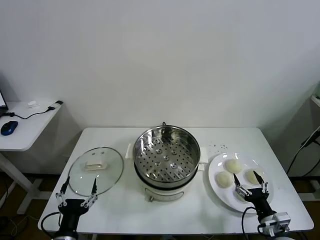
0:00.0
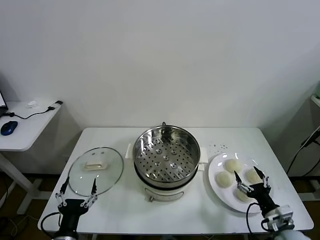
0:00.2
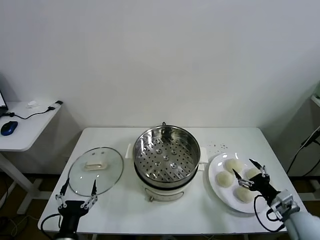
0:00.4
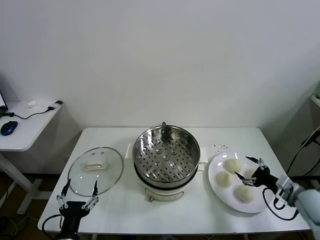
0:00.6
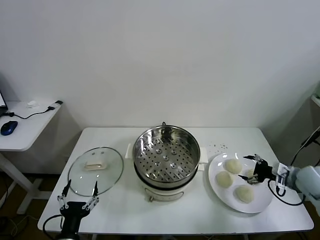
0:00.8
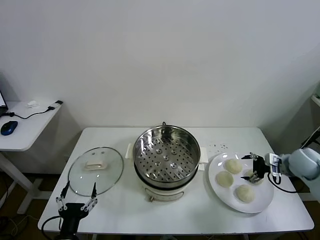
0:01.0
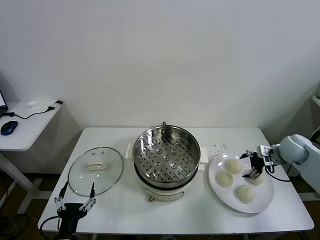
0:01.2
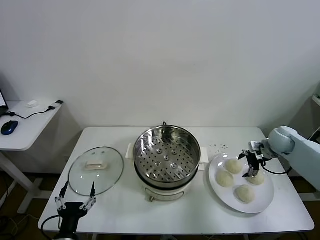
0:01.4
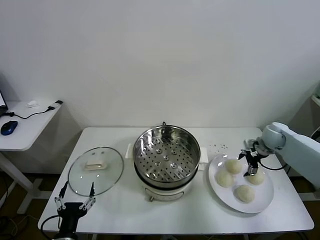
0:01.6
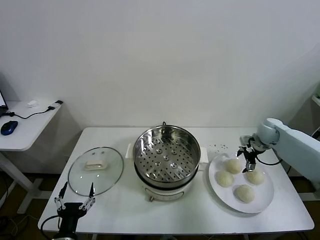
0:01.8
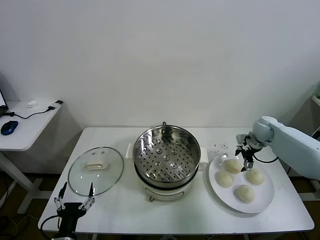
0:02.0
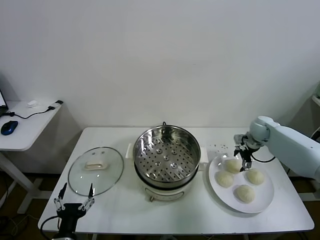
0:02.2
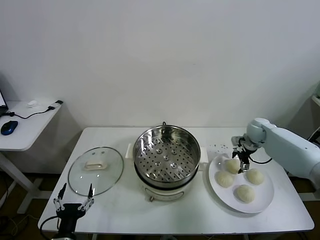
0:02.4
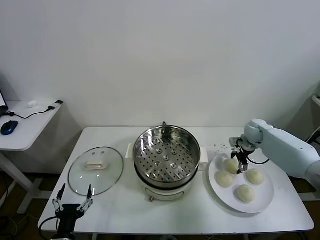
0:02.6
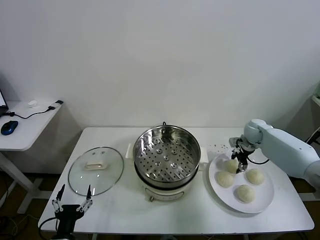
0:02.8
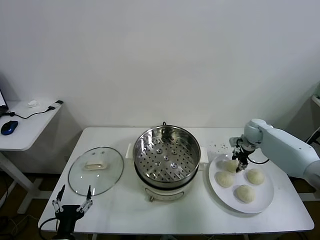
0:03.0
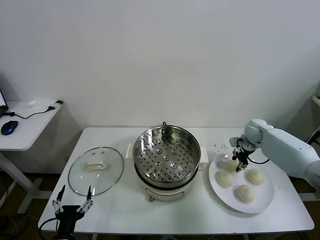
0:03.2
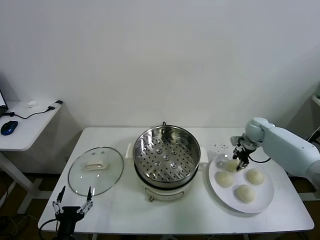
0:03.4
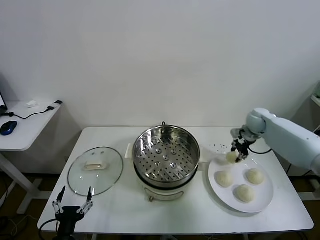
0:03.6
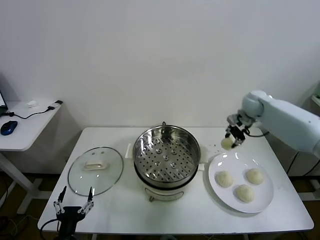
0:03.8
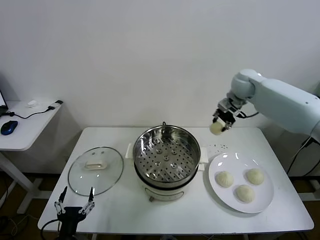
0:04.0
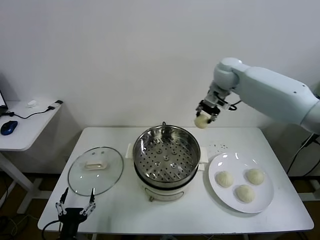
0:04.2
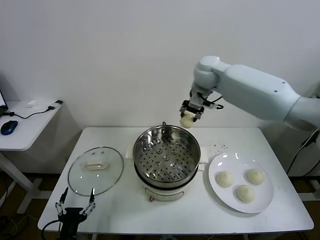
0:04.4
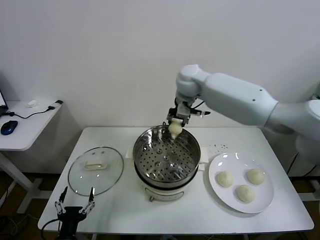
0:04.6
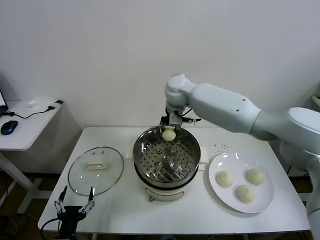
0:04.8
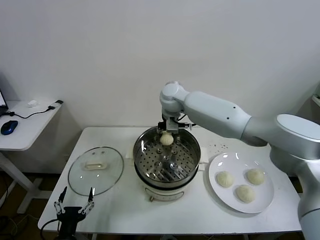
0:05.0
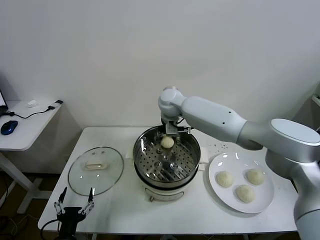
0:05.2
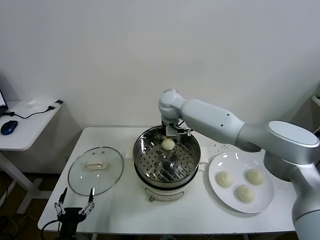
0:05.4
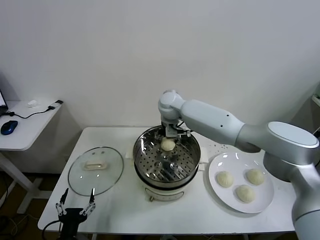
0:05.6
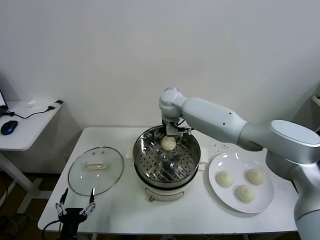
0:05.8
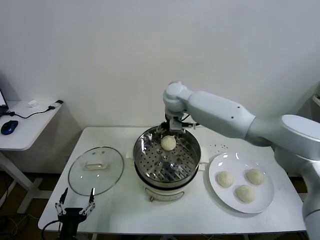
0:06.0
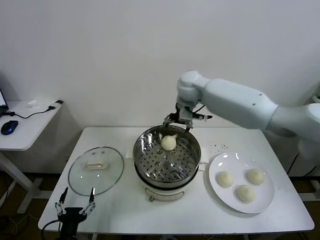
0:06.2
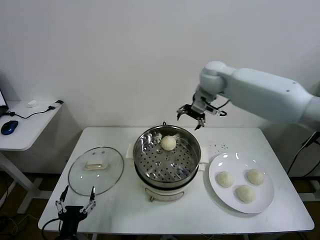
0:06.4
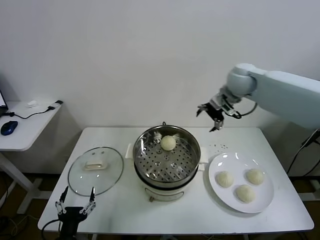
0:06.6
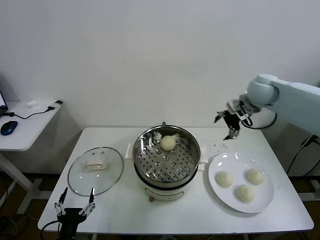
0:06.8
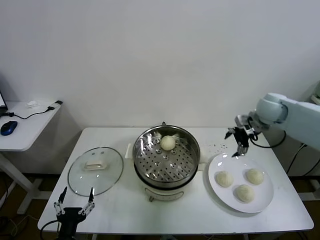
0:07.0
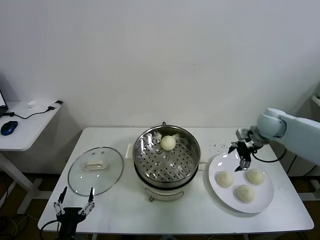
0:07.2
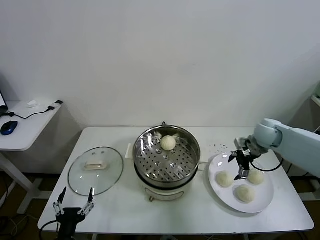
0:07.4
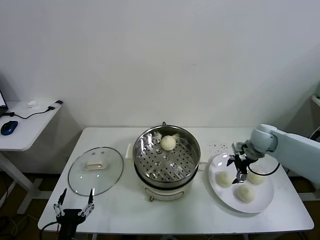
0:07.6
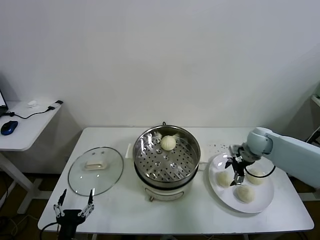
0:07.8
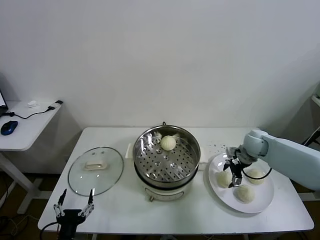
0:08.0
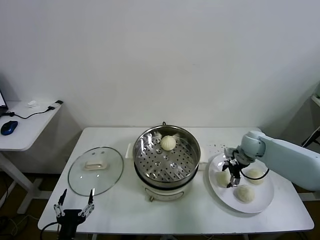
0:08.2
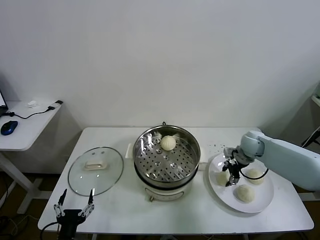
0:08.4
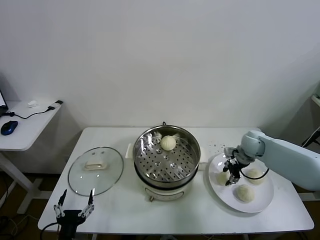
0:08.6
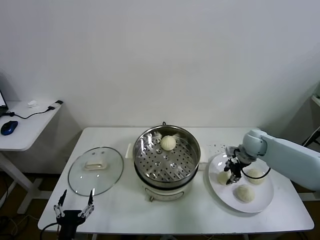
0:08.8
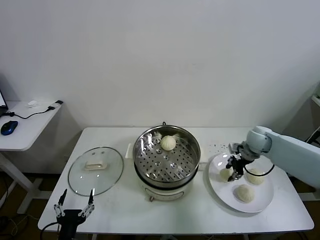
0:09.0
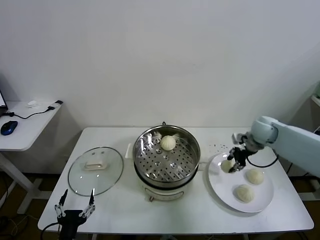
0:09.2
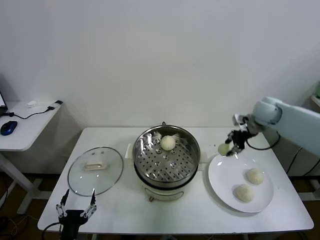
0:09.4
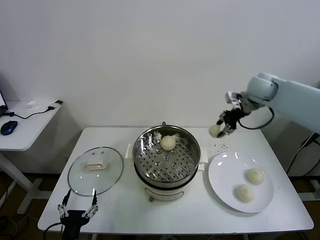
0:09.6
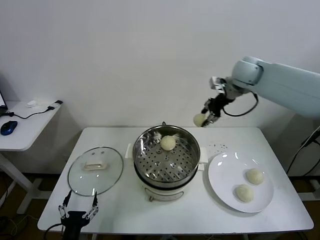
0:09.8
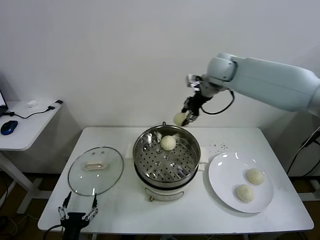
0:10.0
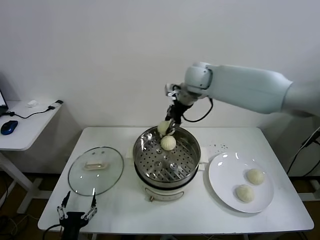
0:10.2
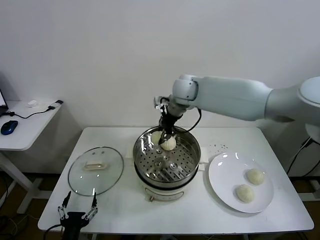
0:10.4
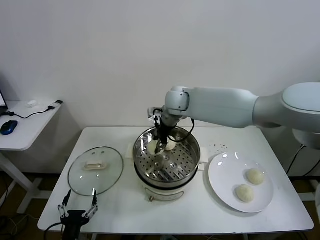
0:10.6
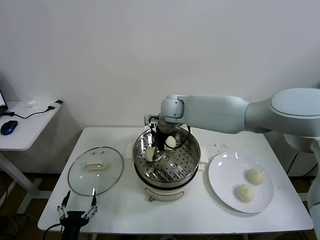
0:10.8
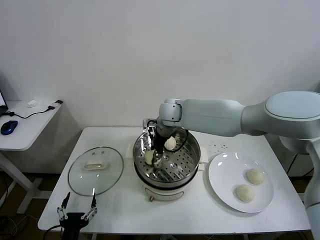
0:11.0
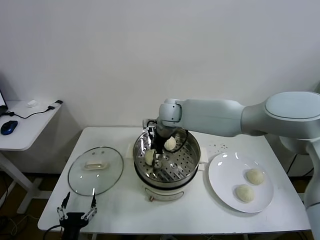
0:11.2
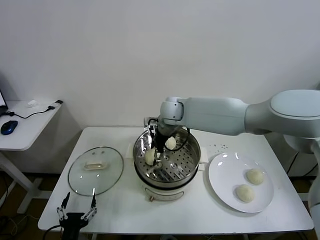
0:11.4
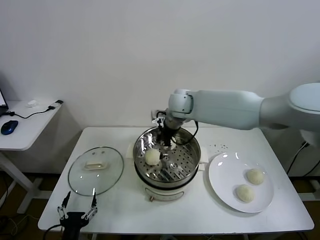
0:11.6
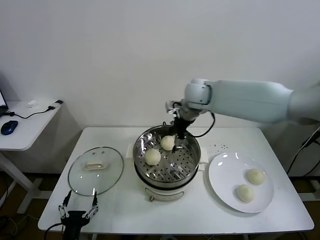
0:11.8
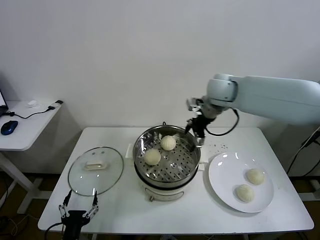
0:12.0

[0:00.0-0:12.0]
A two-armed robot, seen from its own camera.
Task of the whole recording: take steamed baozi put them in steamer.
Step, 0:00.0 to 0:02.8: Grasp the baozi in the plate with right gripper.
Step, 0:03.0 to 0:05.8: Place the baozi on the steamer with right gripper.
Step, 0:06.0 to 0:08.4: Grasp the baozi in the plate with right gripper.
Step, 0:08.6 to 0:11.4: Place the baozi on the steamer with right gripper.
0:01.6 to 0:03.0: The right gripper ends up approximately 5 cm from where it was, and closes its fingers.
0:03.0 to 0:04.4: The right gripper moves upward and to the left, about 35 cm.
0:04.4 to 0:06.0: The right gripper travels to the left and downward by roughly 10 cm, and opens up.
0:06.0 to 0:07.6: The right gripper shifts about 35 cm to the right and downward.
0:07.6 to 0:09.0: The right gripper closes up.
0:09.0 to 0:10.4: The right gripper moves to the left and upward, about 35 cm.
0:10.4 to 0:12.0: The right gripper heads to the right, covering approximately 10 cm, and opens.

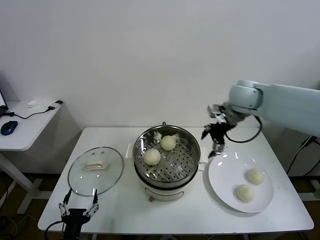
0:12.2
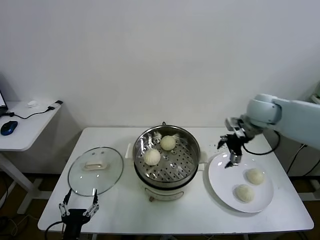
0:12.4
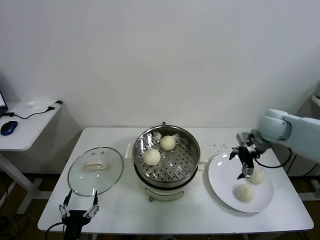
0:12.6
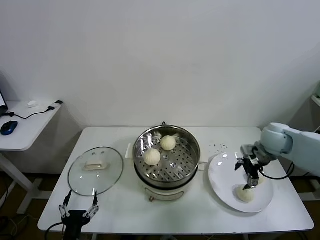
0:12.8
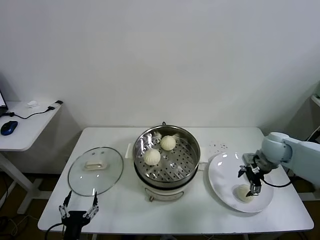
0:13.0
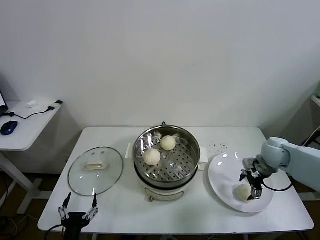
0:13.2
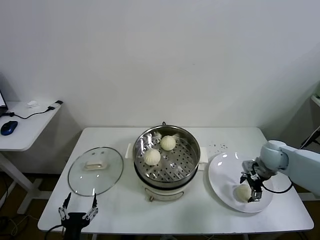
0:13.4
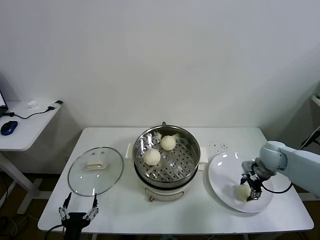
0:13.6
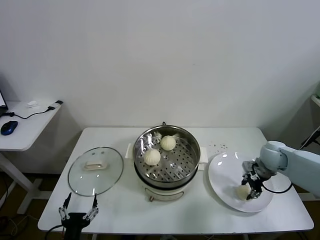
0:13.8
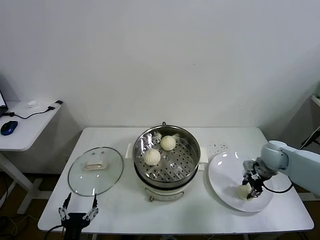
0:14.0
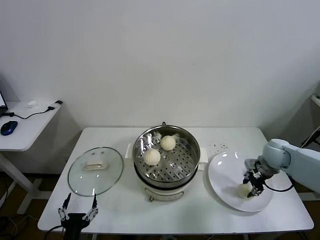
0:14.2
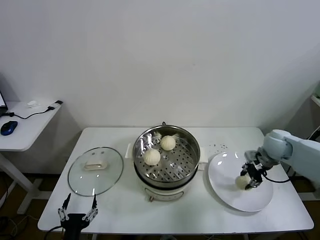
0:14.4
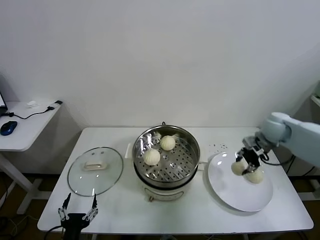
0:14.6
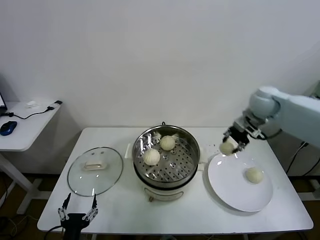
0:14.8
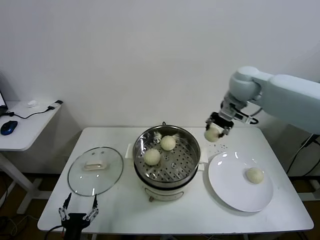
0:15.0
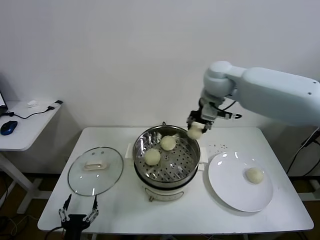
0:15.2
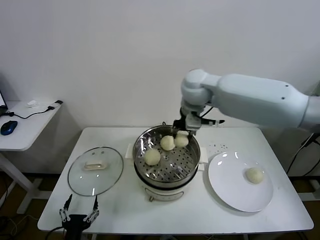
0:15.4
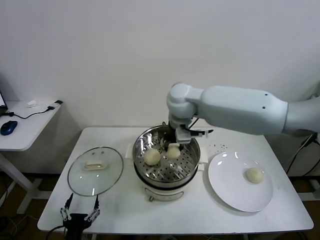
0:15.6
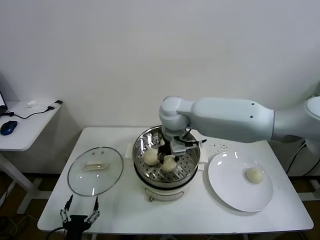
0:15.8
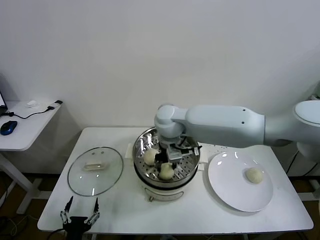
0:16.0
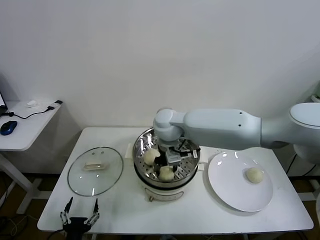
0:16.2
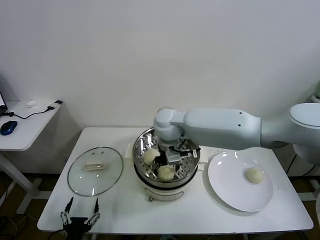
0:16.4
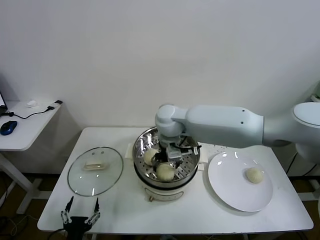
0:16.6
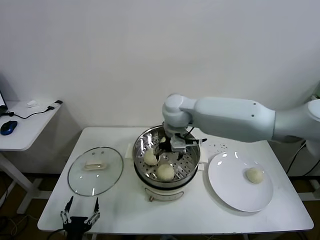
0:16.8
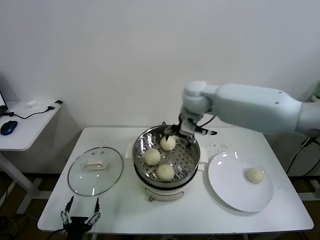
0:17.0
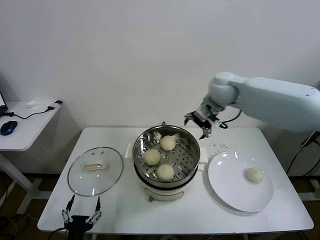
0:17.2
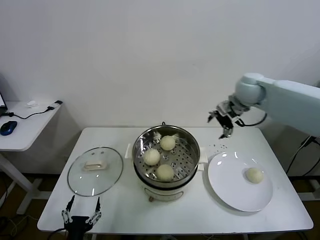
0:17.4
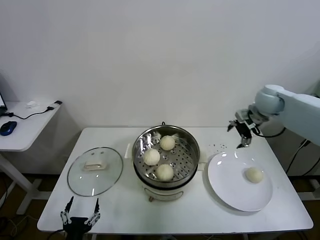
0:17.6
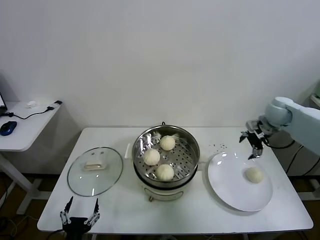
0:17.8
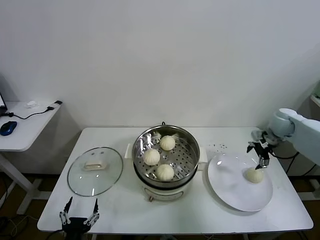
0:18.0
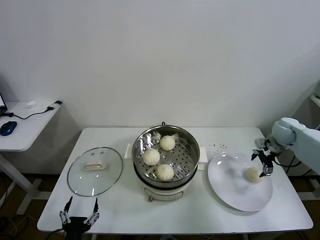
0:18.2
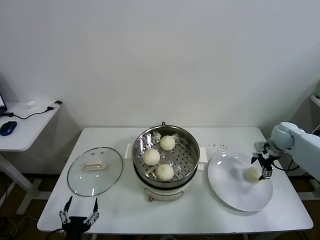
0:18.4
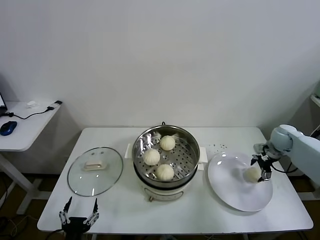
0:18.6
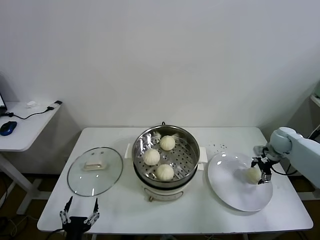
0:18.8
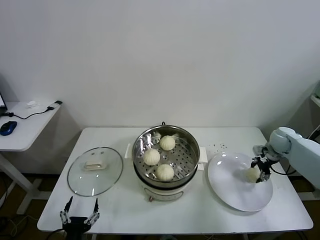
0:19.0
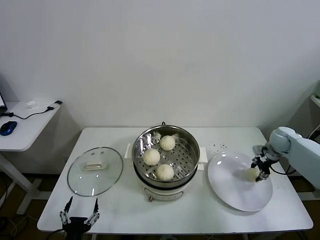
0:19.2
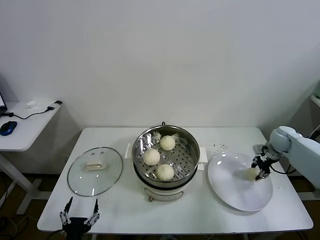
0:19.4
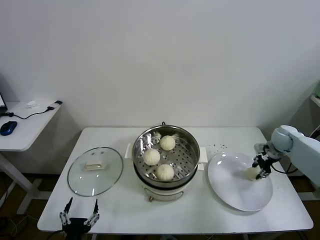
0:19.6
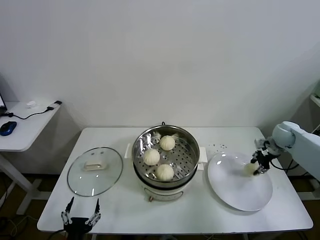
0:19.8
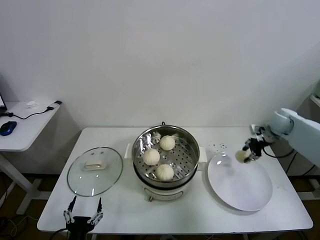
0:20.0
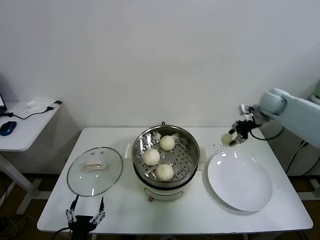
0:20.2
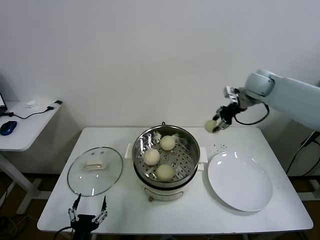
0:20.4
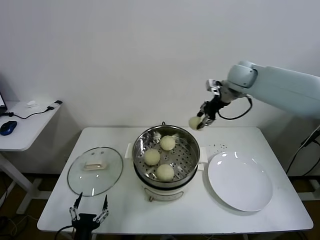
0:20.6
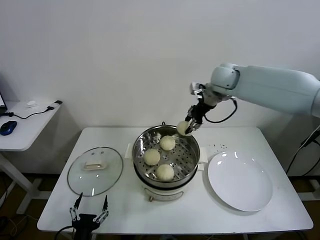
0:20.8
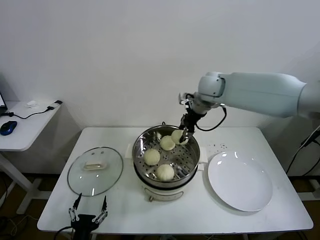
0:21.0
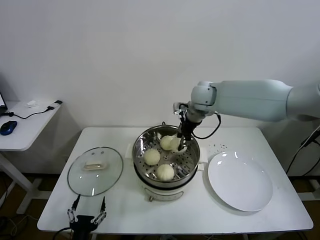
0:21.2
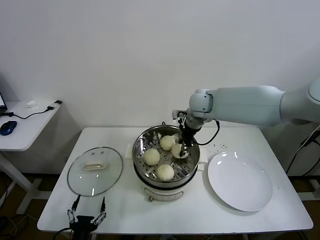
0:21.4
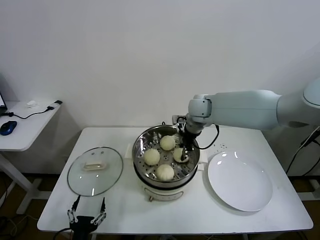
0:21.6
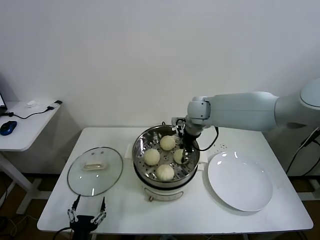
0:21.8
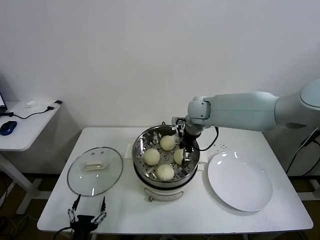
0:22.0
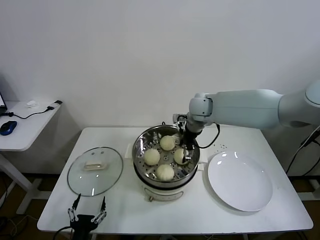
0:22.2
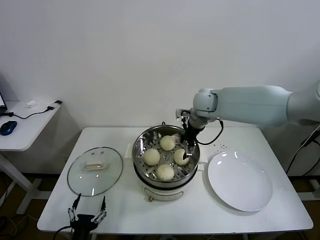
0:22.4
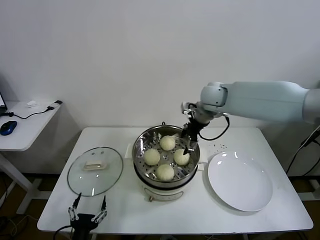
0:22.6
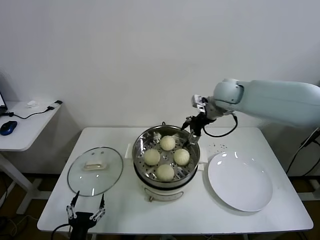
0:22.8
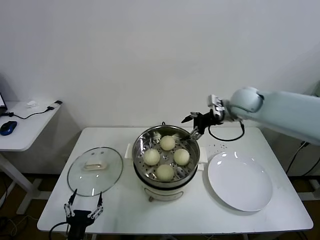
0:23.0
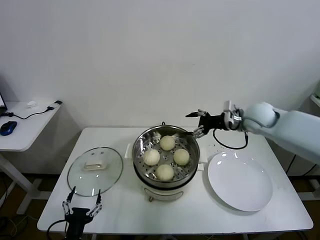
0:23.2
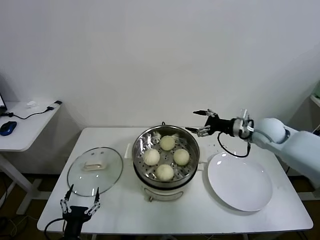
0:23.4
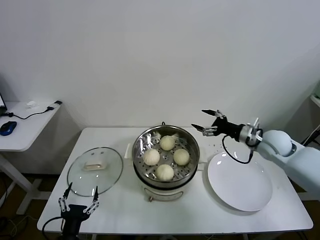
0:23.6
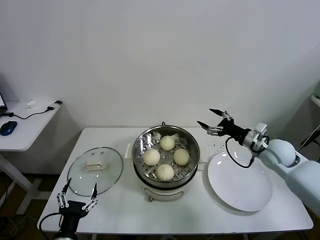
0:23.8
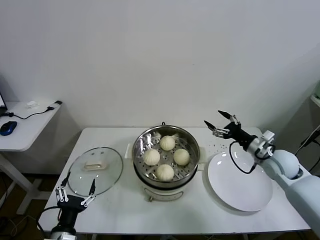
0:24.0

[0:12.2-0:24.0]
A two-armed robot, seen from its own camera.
Task of the whole recording: take steamed baozi put them in steamer.
Step, 0:12.2 to 0:13.6: Grasp the baozi in the plate with right gripper.
Step, 0:14.0 to 0:16.6: Place the baozi on the steamer with right gripper.
Step, 0:16.8 to 0:19.0: Grasp the baozi in the plate with right gripper.
Step, 0:19.2 to 0:22.2: Place the baozi on the steamer with right gripper.
0:12.2 to 0:13.6: The right gripper shifts some 25 cm downward and to the right.
0:13.6 to 0:15.2: The right gripper shifts roughly 35 cm upward and to the left, and closes.
0:15.2 to 0:16.6: The right gripper moves to the left and downward, approximately 20 cm, and opens.
0:16.6 to 0:18.2: The right gripper moves to the right, roughly 40 cm.
0:18.2 to 0:19.6: The right gripper closes up.
0:19.6 to 0:21.0: The right gripper goes roughly 35 cm to the left and upward.
0:21.0 to 0:22.6: The right gripper opens.
0:22.6 to 0:24.0: The right gripper is displaced to the right, downward and backward by about 30 cm. Meanwhile the left gripper moves about 5 cm.
